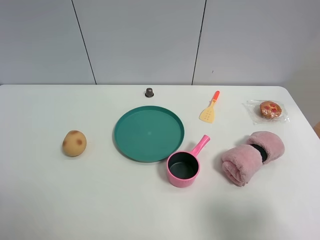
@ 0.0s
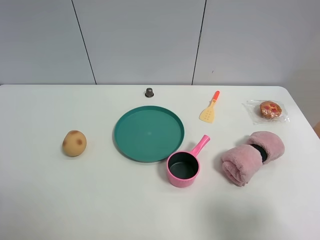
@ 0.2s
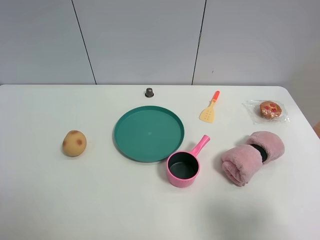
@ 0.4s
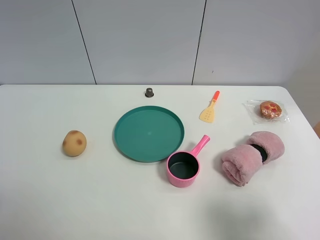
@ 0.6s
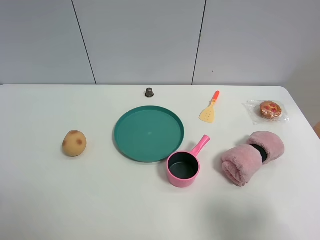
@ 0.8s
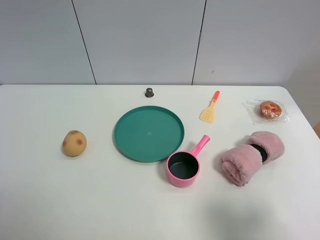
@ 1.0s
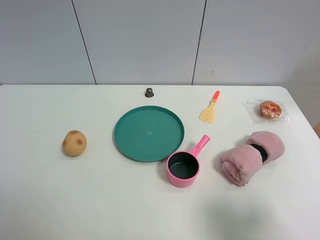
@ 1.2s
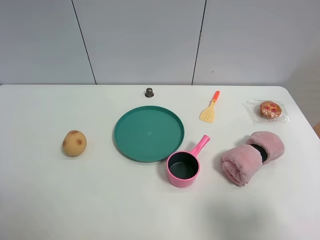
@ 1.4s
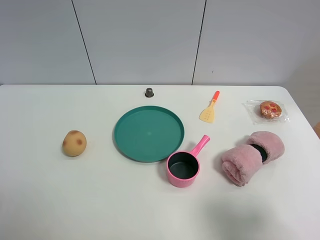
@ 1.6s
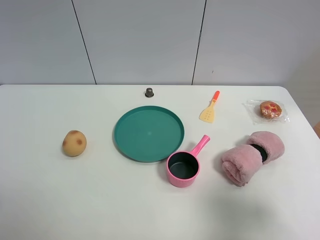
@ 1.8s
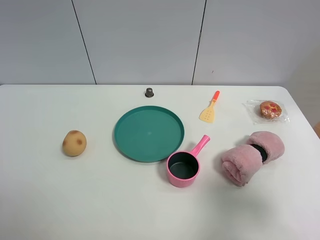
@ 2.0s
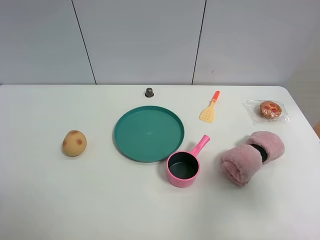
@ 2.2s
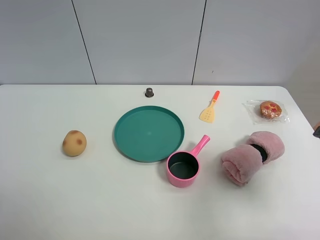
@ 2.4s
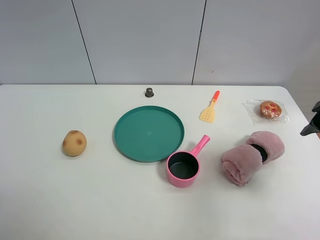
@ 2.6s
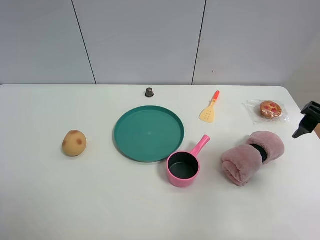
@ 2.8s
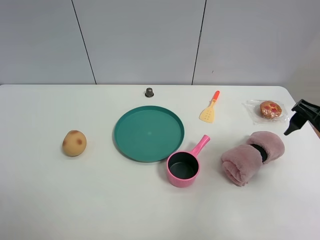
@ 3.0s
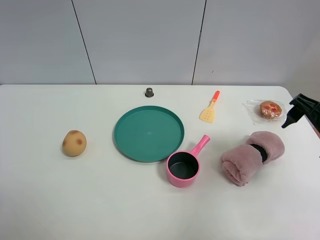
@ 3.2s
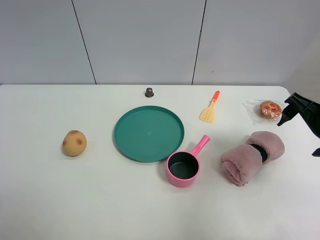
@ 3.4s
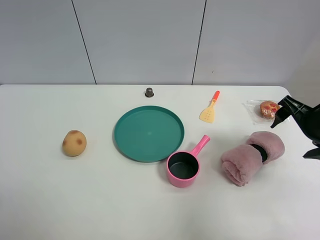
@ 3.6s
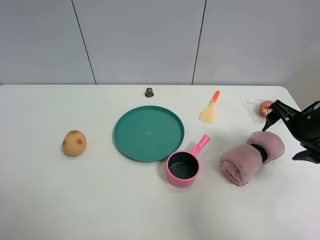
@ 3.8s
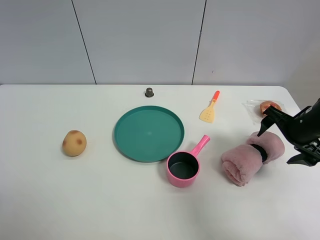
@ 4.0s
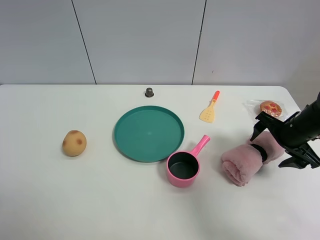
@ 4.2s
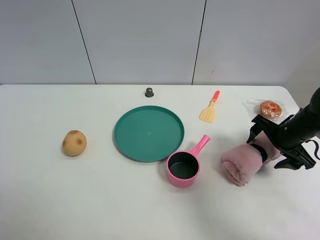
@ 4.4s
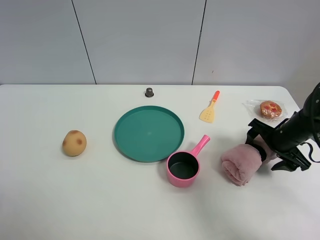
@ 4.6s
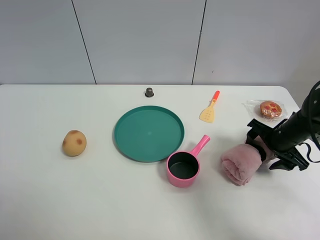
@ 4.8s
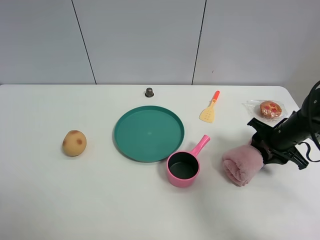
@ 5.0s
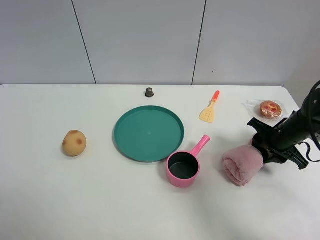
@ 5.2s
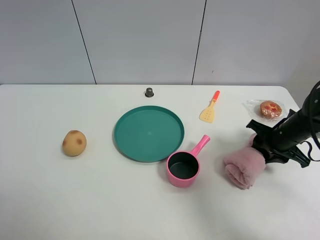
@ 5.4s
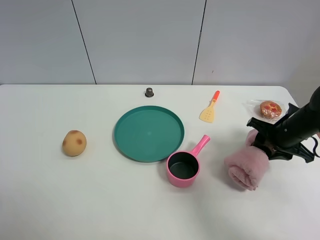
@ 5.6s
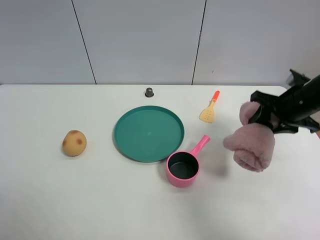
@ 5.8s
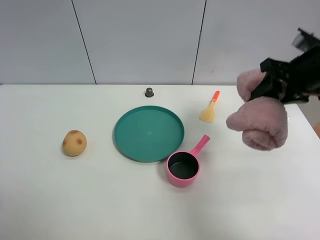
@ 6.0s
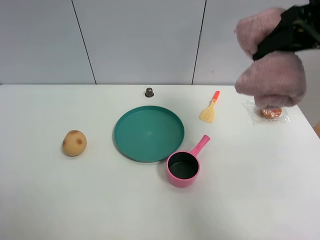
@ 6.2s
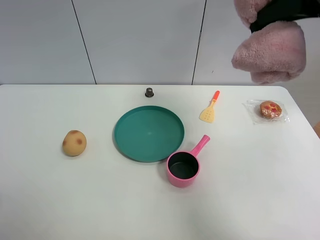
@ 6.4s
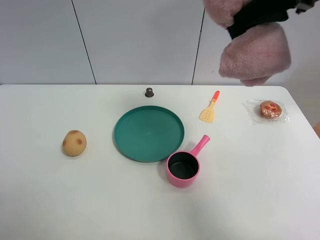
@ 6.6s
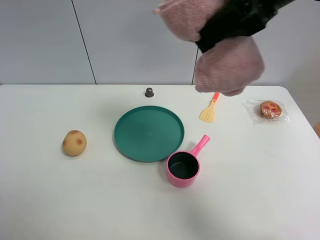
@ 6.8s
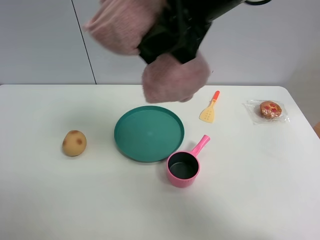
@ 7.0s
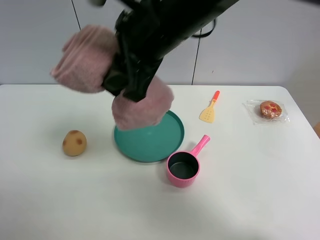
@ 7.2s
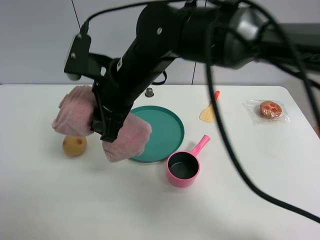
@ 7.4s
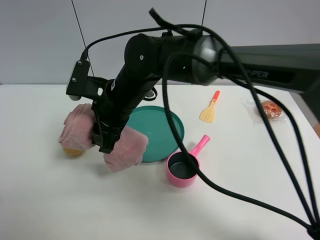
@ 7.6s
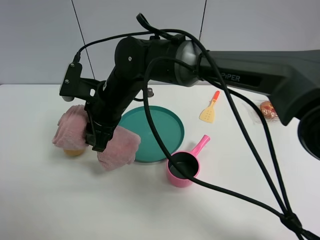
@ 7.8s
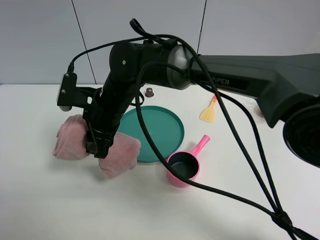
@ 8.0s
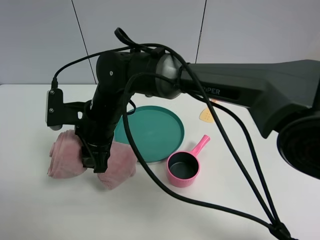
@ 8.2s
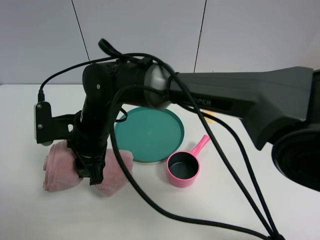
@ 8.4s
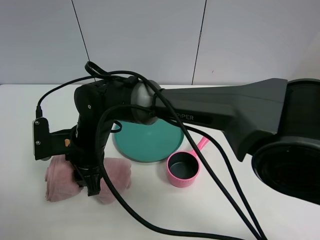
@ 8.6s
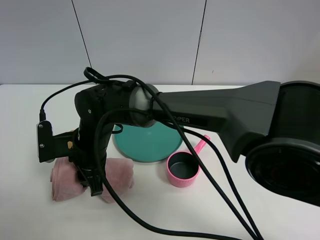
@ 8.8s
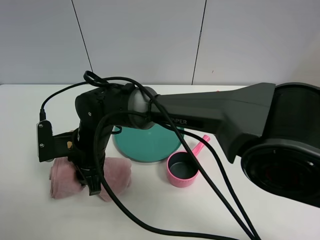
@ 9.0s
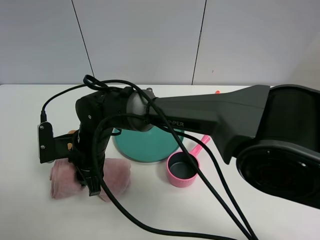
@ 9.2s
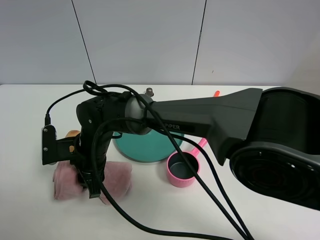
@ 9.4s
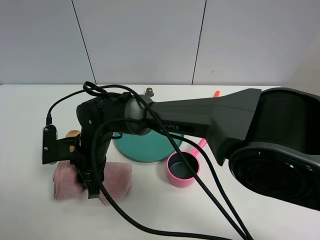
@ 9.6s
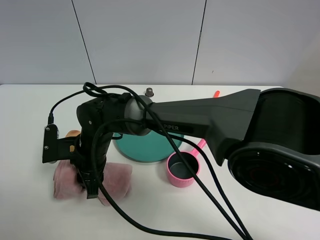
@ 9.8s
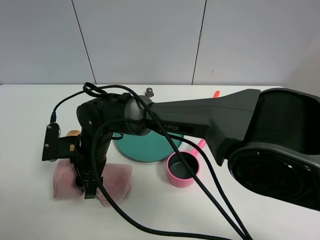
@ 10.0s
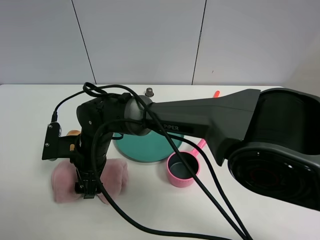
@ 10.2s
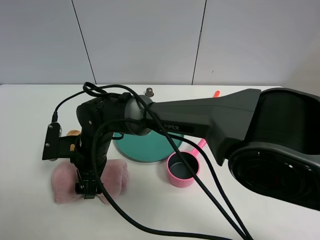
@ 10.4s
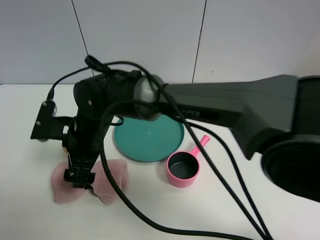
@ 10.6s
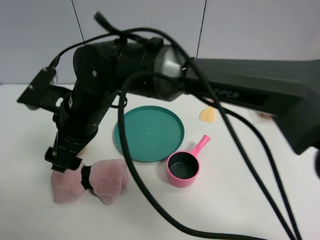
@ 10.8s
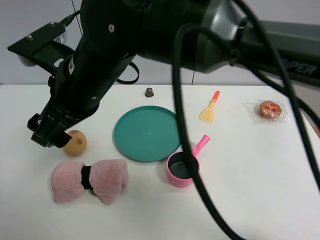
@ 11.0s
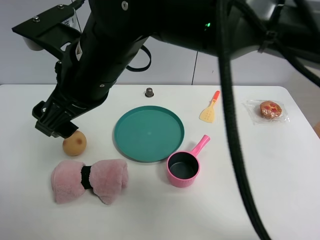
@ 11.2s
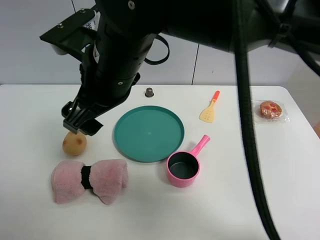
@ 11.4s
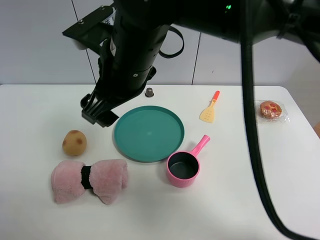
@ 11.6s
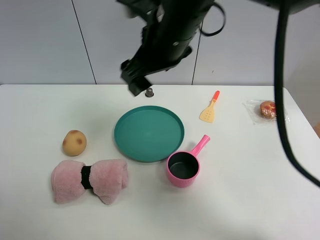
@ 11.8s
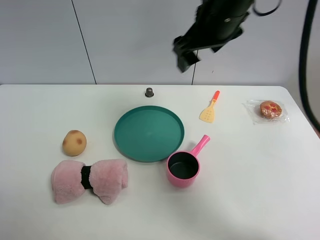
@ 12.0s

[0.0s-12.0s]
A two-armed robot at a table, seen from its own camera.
Task of the whole recording: the gripper move the object.
Step, 0.0s to 5.2s: Grasp the pink towel with the right gripper.
Step, 5.4s to 10.4s: Place the pink towel on the table with the right gripper.
1.6s to 3.0s: The right gripper heads forward, covering about 20 cm.
3.0s to 4.4s: The right gripper goes approximately 15 cm downward and forward.
4.4s to 6.0s: The right gripper is displaced upward by roughly 15 cm, and closes.
6.0s to 7.6s: The right gripper shifts about 35 cm to the left.
7.6s to 9.0s: The right gripper goes about 10 cm downward and to the left.
9.0s to 10.4s: The right gripper opens its fingers.
10.4s to 12.0s: The right gripper goes about 35 cm upward and to the right.

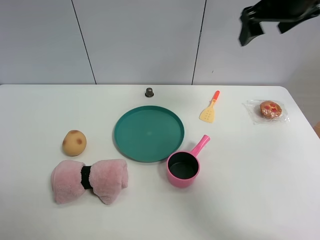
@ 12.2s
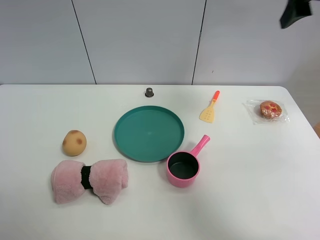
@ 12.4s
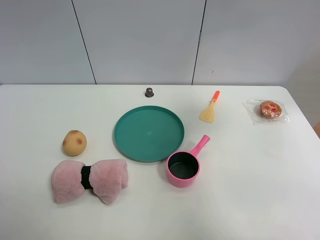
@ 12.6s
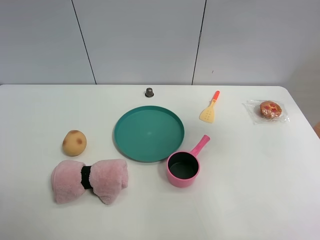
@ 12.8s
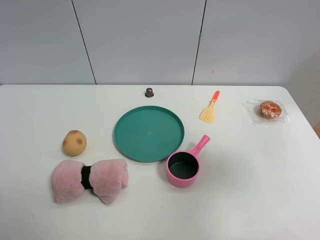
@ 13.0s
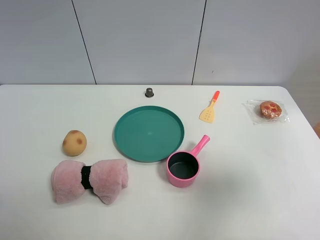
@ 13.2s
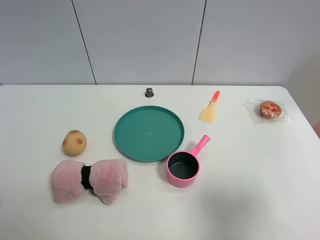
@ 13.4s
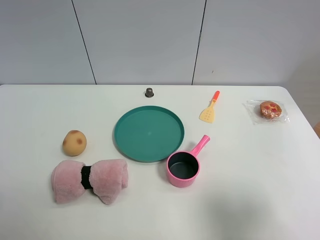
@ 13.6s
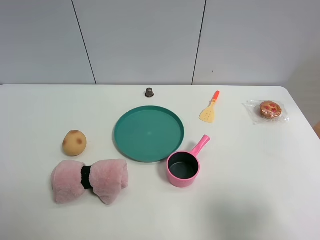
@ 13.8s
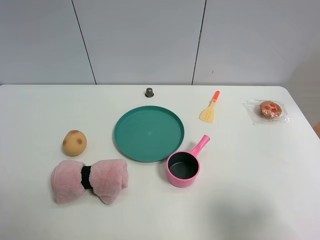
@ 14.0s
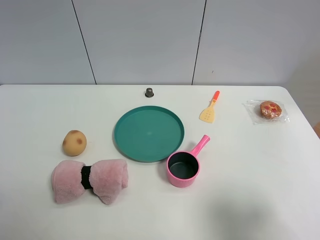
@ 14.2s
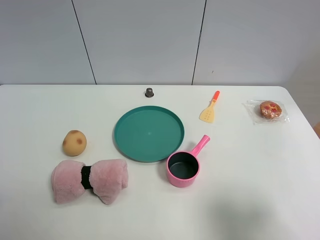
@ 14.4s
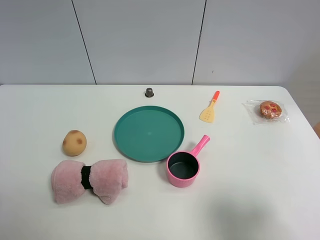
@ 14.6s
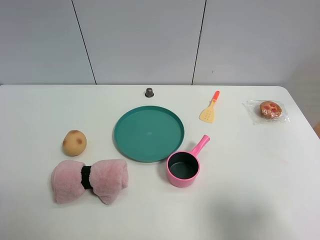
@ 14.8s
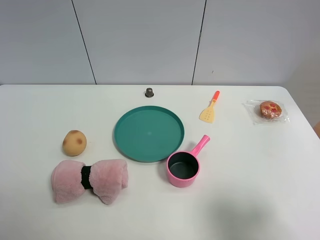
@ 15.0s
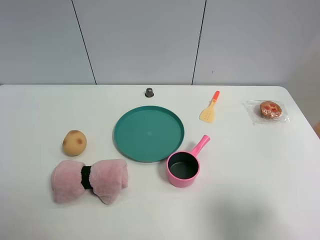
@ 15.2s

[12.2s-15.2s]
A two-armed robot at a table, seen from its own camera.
Task of the whole recording: the gripper move the object.
12.2s to 13.8s: The right gripper is displaced backward by roughly 35 cm.

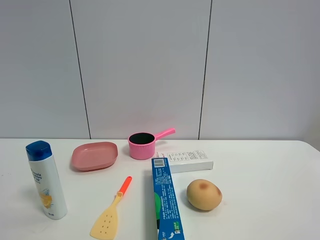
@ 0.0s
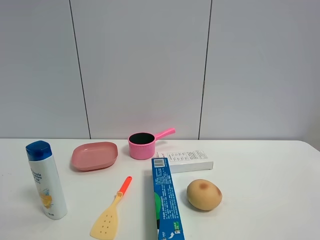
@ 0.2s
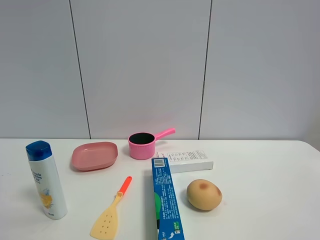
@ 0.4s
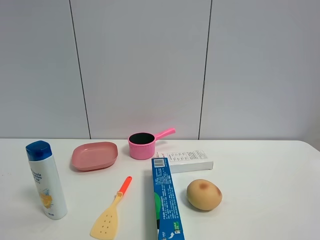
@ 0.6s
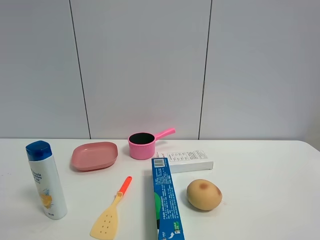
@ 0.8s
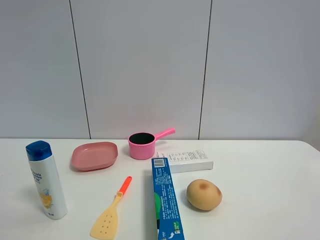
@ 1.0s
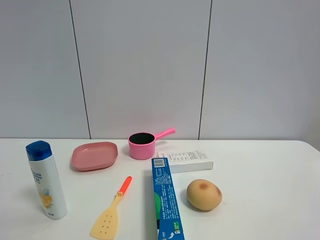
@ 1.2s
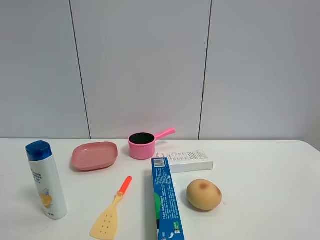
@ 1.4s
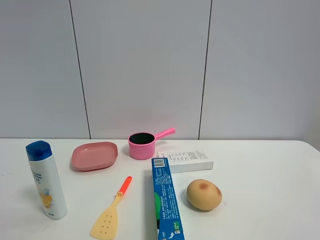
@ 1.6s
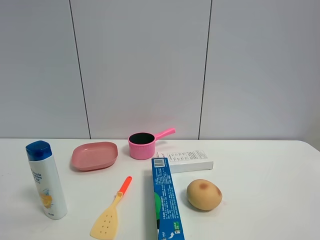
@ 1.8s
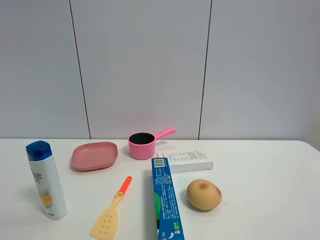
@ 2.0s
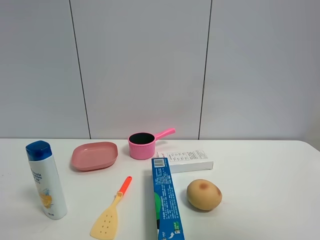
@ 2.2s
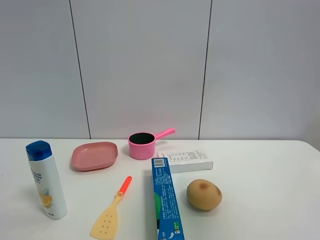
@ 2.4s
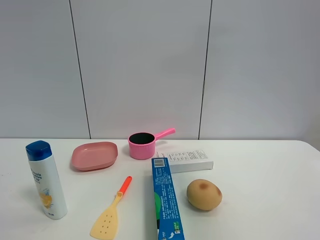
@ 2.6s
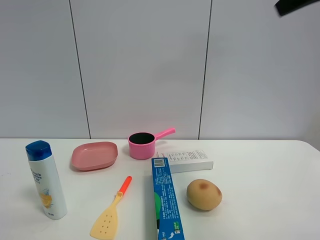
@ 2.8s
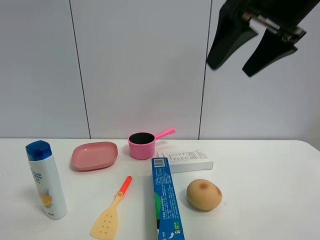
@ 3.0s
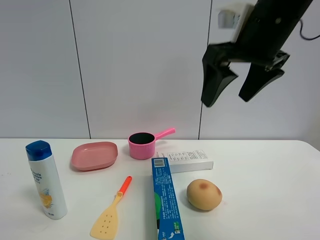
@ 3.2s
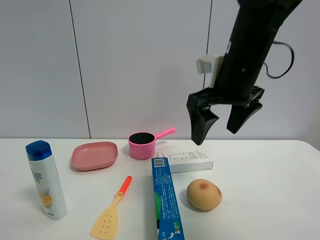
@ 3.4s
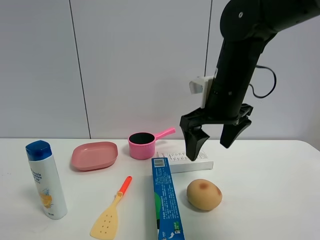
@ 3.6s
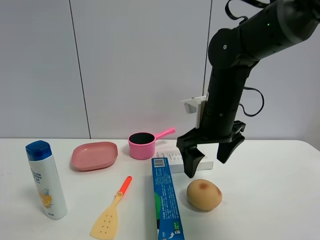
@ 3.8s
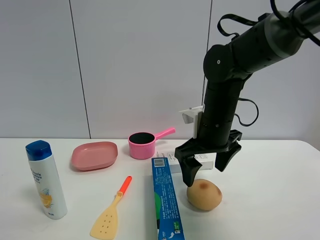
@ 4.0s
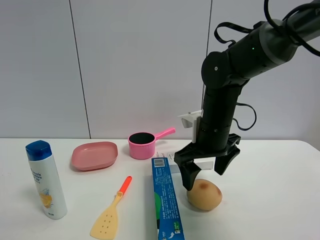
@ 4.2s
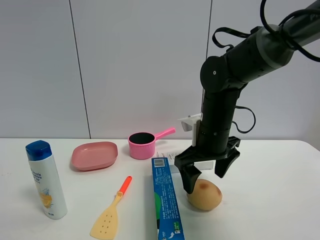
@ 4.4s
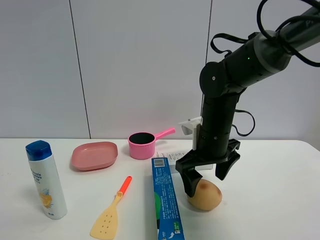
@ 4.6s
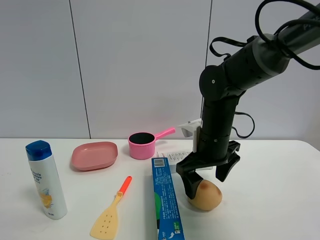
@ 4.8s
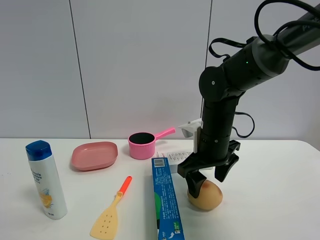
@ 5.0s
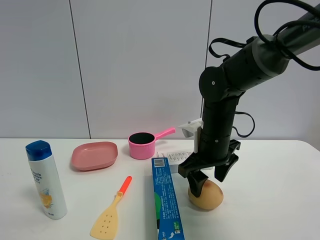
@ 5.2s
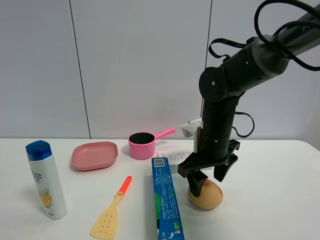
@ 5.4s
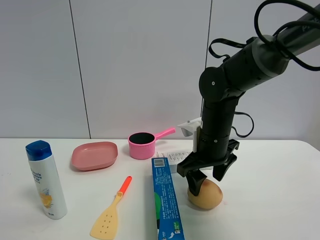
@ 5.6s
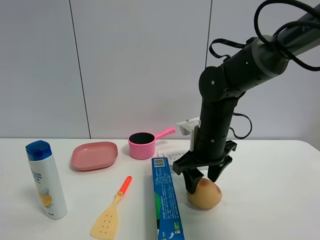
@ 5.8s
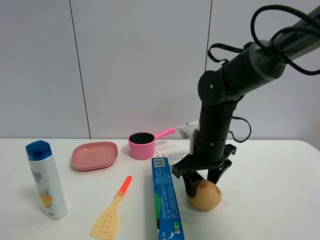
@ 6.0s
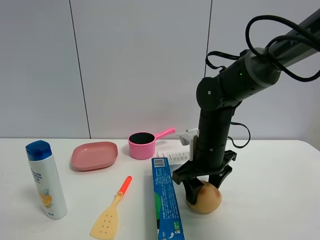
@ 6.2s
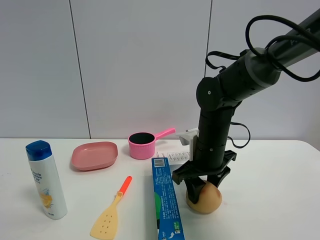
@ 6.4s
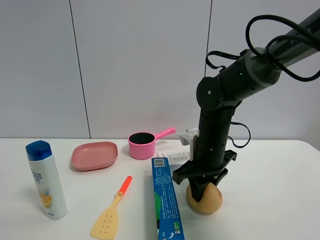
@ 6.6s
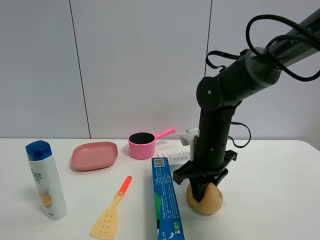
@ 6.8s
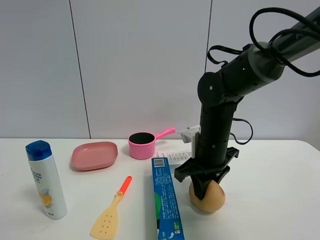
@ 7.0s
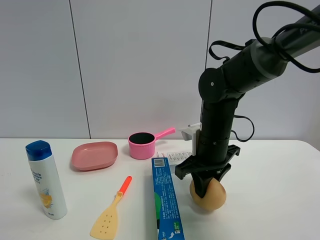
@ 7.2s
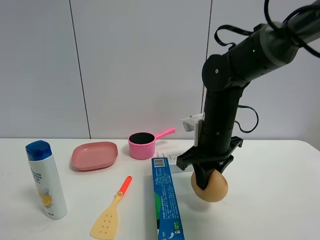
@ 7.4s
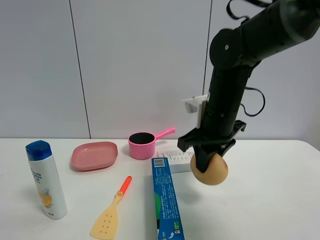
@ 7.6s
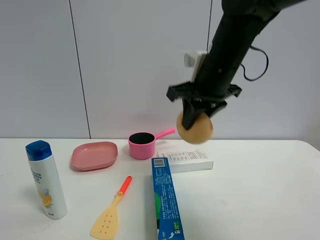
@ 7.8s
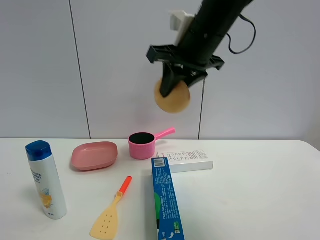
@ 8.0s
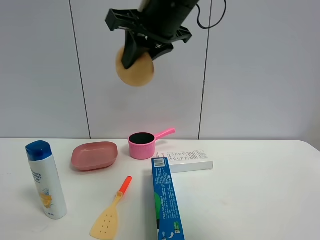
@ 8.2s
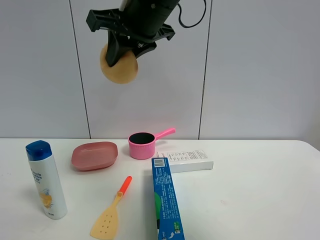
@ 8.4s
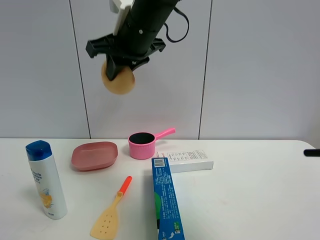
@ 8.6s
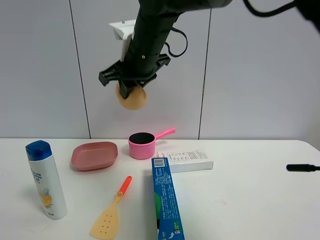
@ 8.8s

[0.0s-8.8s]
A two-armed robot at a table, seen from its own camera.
Task of the whole recording: the gripper move the object.
Step, 0.0s to 6.8s: Grasp the egg yolk pastry with the right gripper.
0.0s to 1.4s: Both grippers stay about where they are.
1.4s to 3.0s: The right gripper heads forward and to the left, covering about 30 cm.
3.0s to 4.4s: The right gripper goes approximately 20 cm downward.
4.4s to 5.8s: The right gripper closes up.
5.8s to 7.4s: The right gripper closes up.
7.4s to 8.8s: The right gripper travels to the left and upward by some 20 cm.
